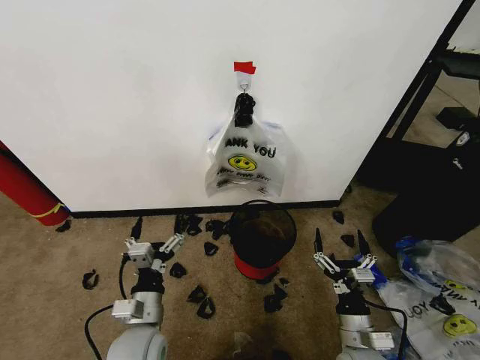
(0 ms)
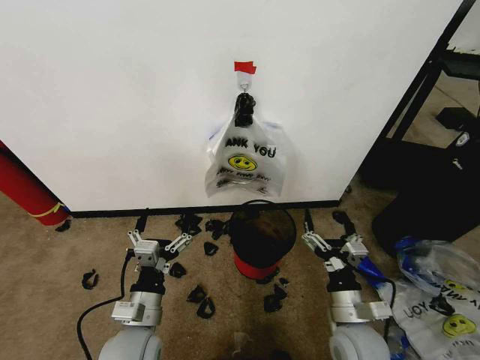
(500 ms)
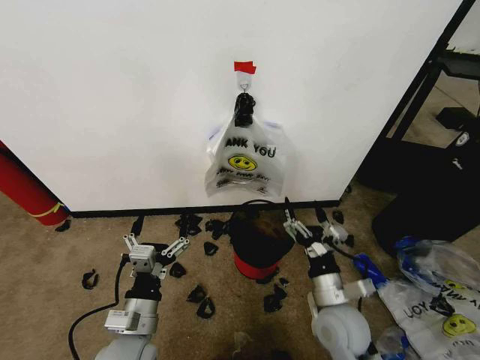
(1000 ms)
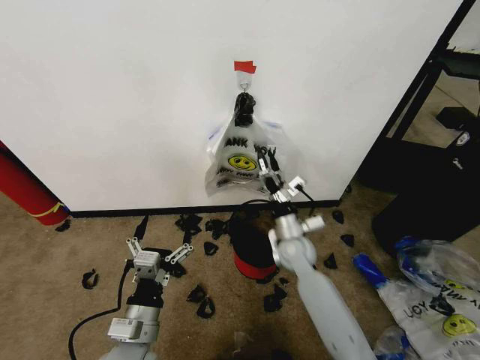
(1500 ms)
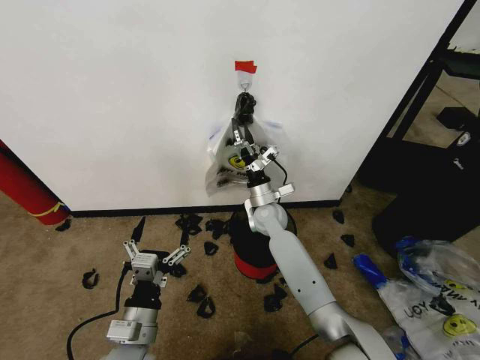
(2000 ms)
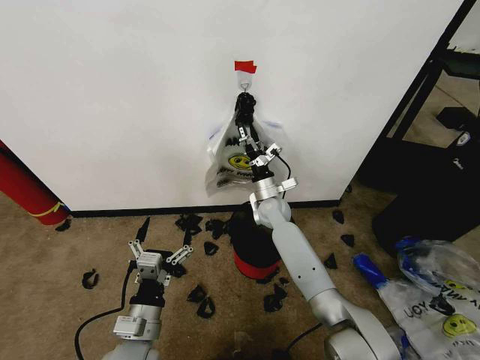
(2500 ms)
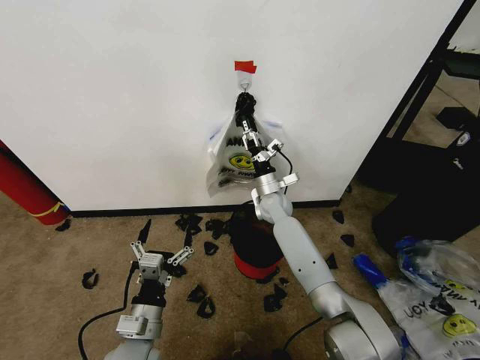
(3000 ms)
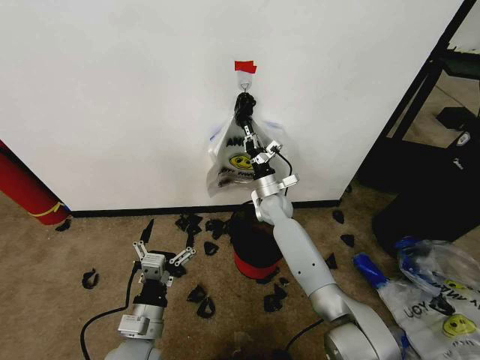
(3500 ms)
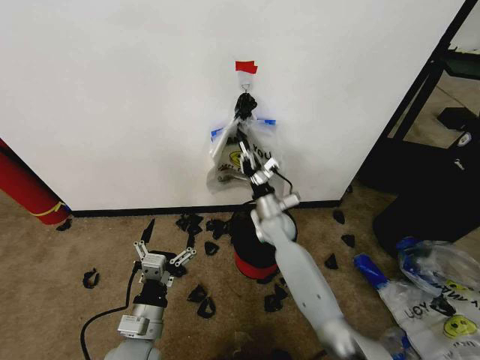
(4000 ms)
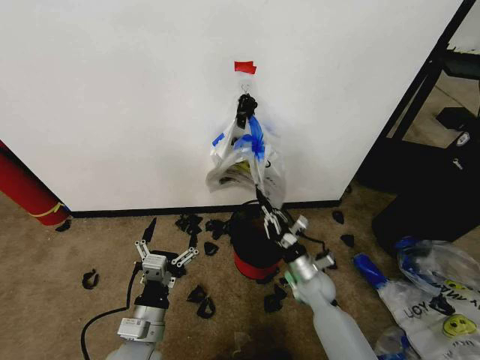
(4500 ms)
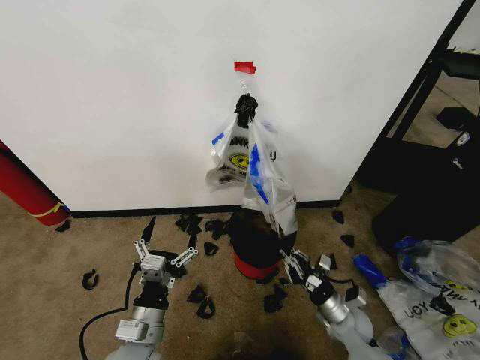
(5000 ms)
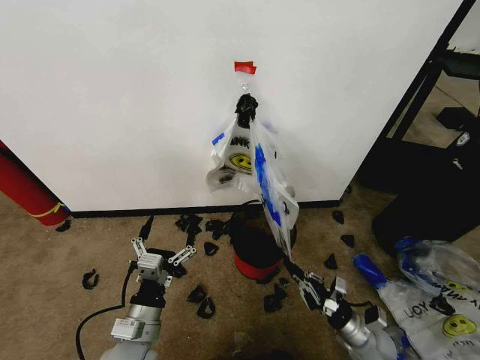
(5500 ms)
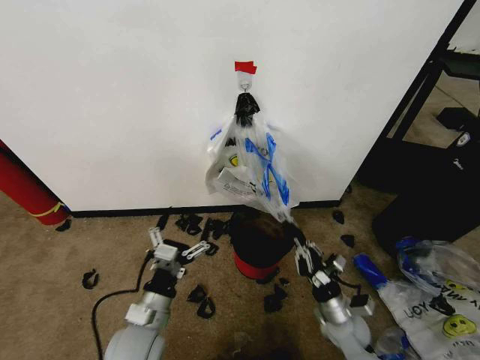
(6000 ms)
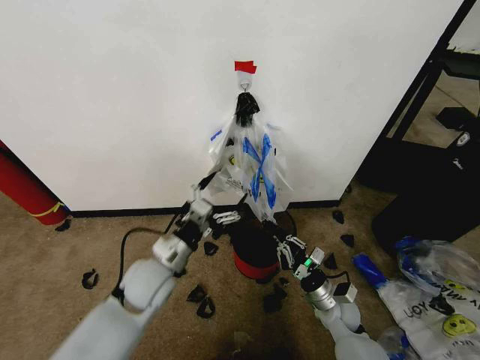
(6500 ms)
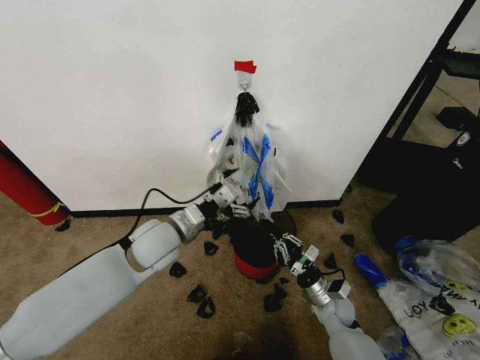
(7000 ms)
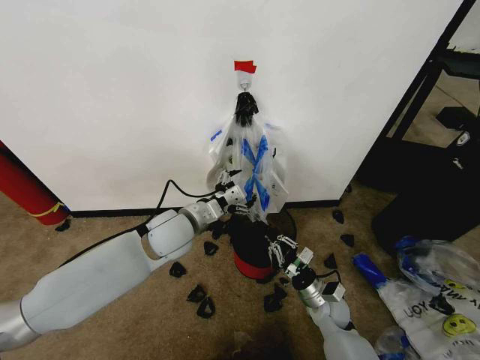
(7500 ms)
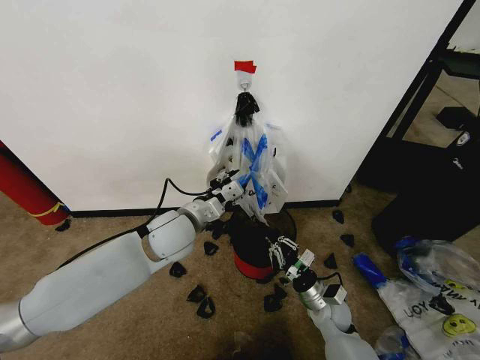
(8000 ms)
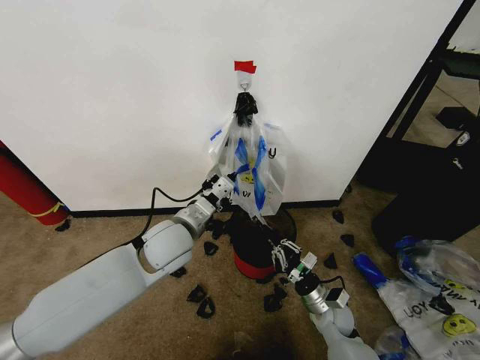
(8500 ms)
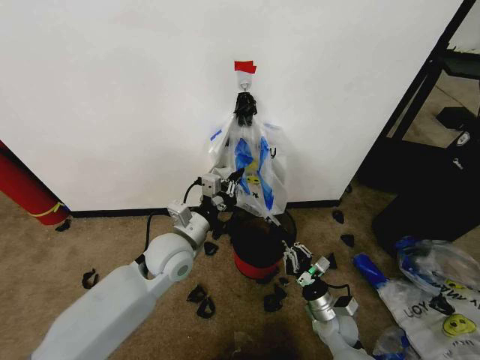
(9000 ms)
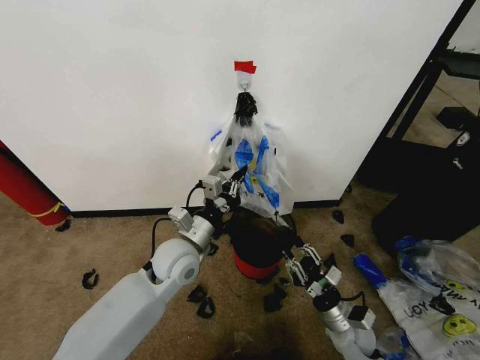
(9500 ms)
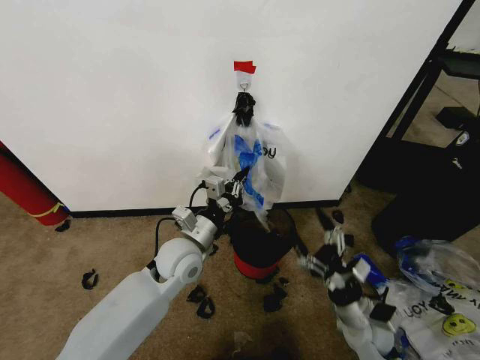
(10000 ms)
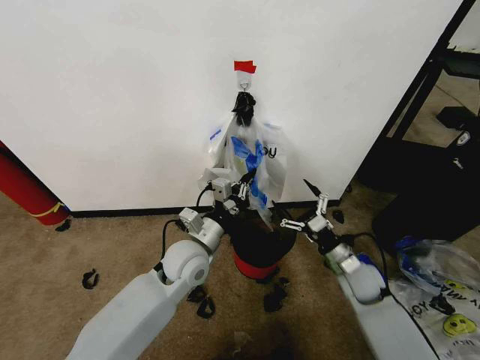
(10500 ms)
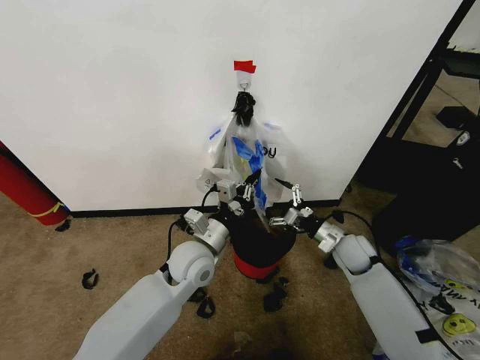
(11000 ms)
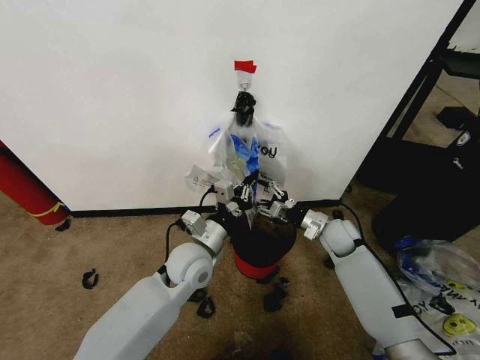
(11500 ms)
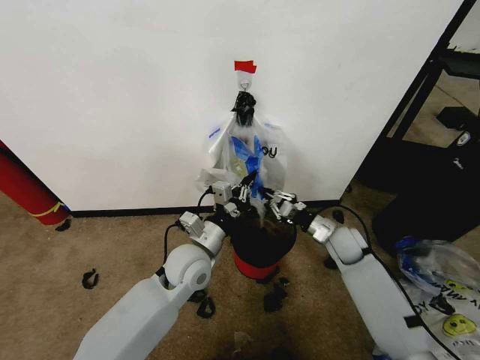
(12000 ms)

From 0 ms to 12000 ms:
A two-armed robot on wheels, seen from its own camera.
Task of the whole recording: Pick up the garbage bag from the wall and place it over the trash bin.
From 2000 ms to 4000 ms: The right gripper closes.
From 4000 ms to 6000 ms: The right gripper travels backward, to the right and downward by roughly 30 cm.
From 6000 ms to 8000 ms: The left gripper travels forward and upward by approximately 20 cm, and closes its fingers.
From 8000 ms to 10000 ms: The left gripper moves downward, roughly 5 cm, and closes up; the right gripper is displaced upward and backward by some 10 cm, and opens.
From 10000 ms to 12000 ms: The right gripper travels forward by roughly 20 cm, and closes up.

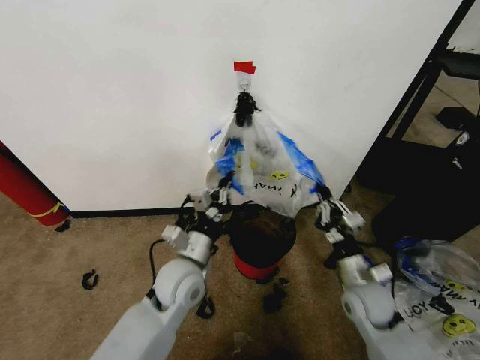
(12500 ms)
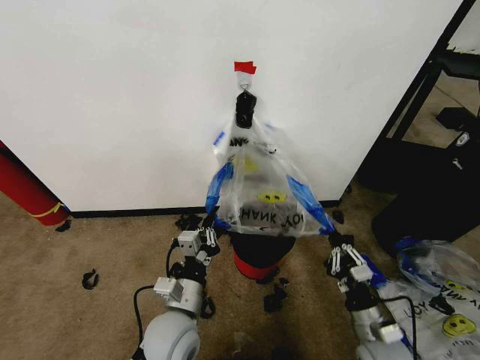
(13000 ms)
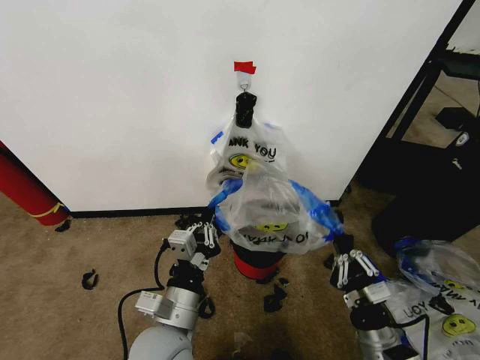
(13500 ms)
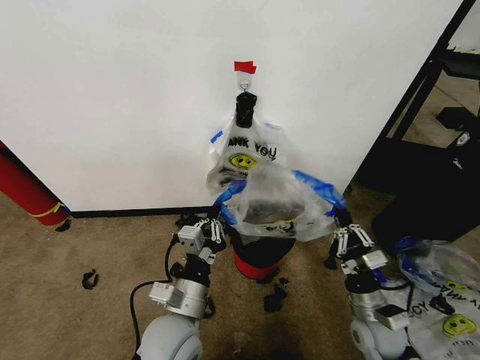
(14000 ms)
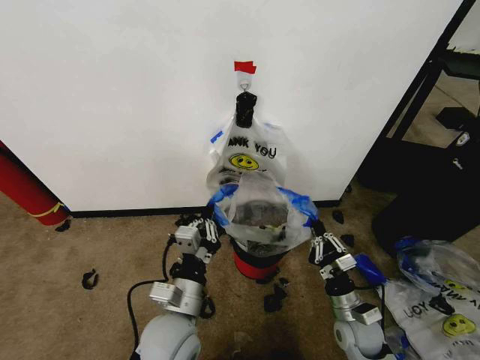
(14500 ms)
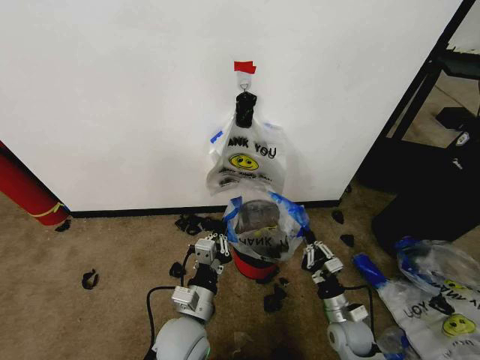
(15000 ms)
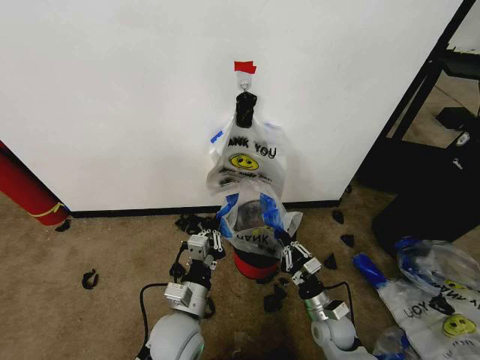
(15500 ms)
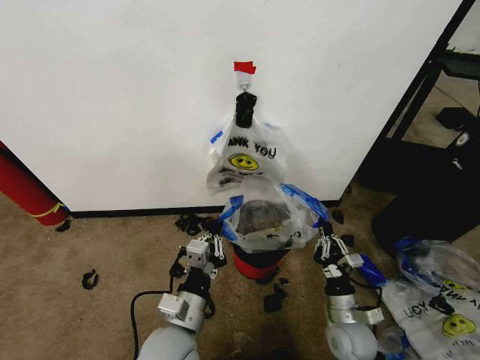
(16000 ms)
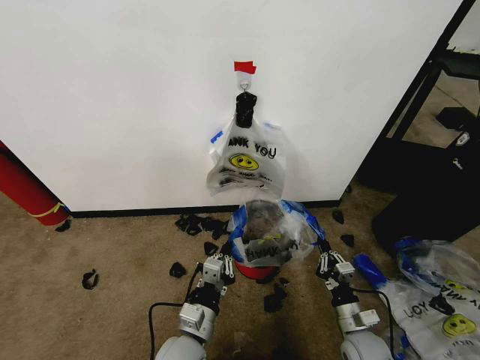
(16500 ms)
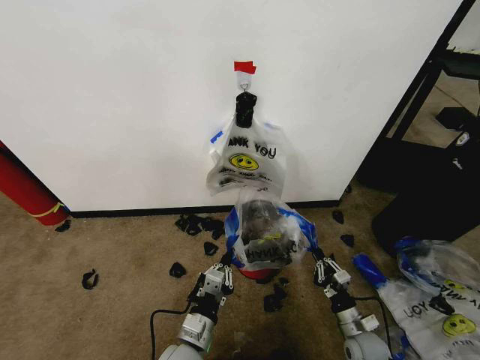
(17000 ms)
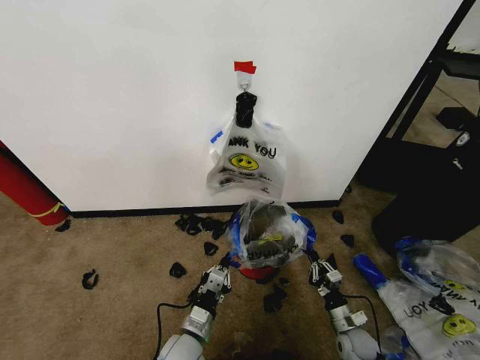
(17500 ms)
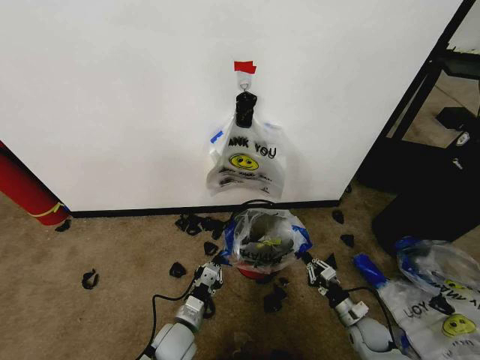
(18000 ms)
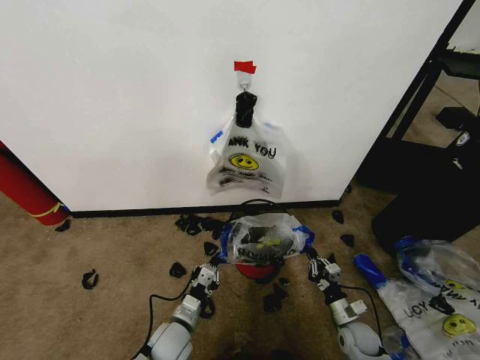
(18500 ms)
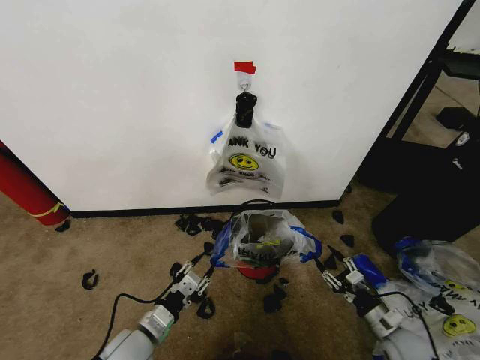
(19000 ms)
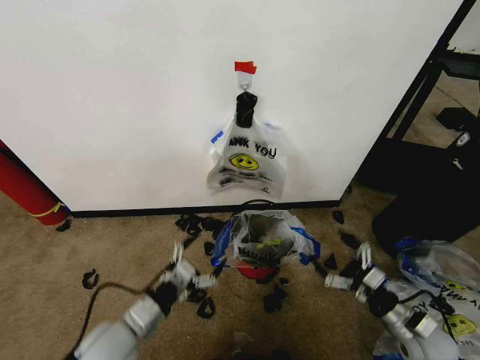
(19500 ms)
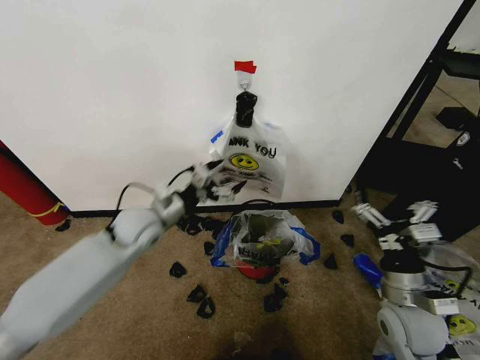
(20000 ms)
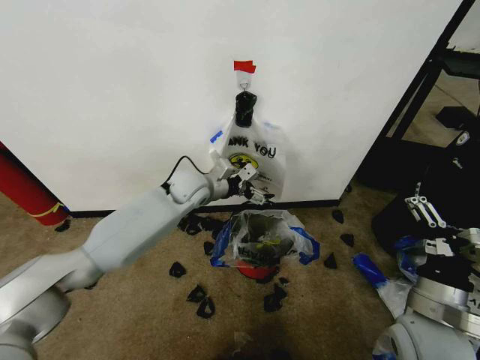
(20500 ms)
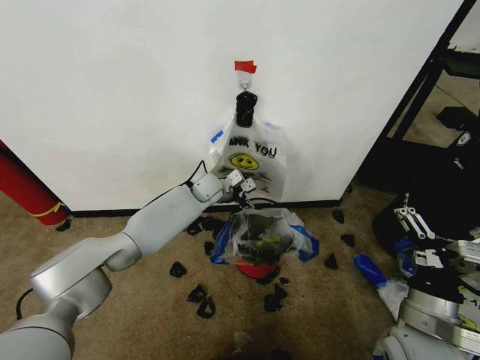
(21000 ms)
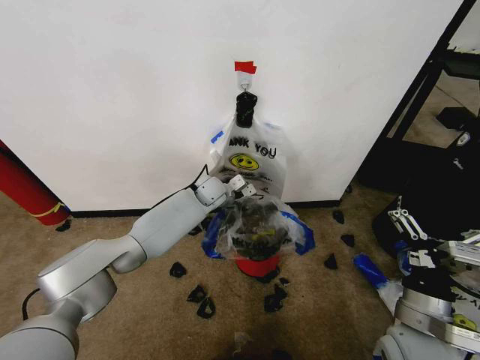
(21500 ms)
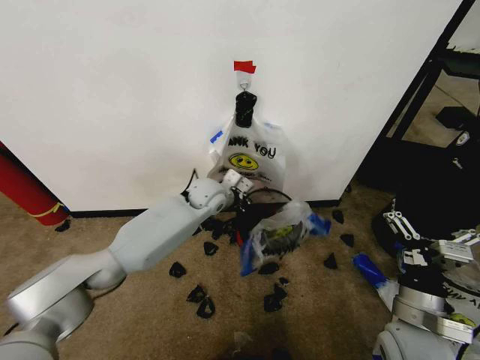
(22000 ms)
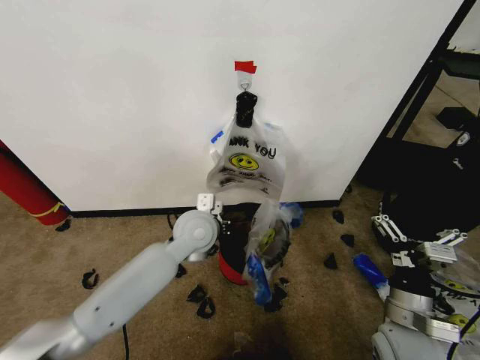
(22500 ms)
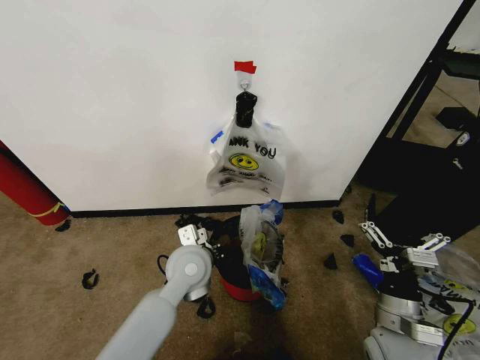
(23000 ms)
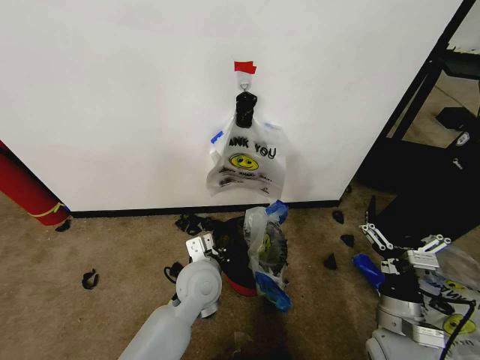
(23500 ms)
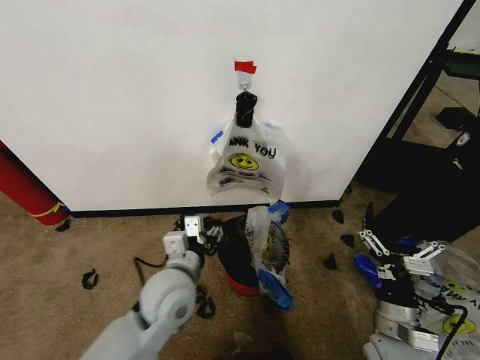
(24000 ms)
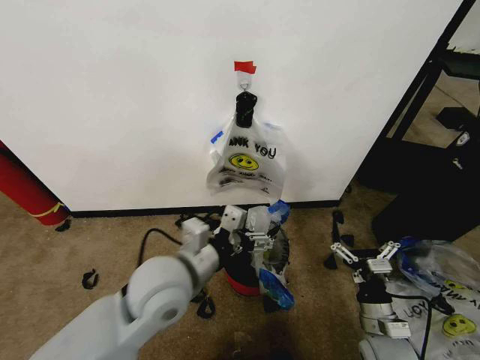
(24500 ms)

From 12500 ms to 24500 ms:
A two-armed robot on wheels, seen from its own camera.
Task of the whole recording: Pick up the garbage bag from the wall and place it over the trash bin.
From 12500 ms to 14500 ms: The right gripper heads downward, covering approximately 10 cm, while the left gripper moves backward, approximately 10 cm.
From 14500 ms to 16500 ms: The left gripper heads downward, covering about 10 cm.
From 16500 ms to 18500 ms: The left gripper heads downward, to the left and forward, covering about 10 cm; the right gripper shifts about 10 cm downward.
From 18500 ms to 20500 ms: The left gripper goes approximately 35 cm forward and upward, and opens its fingers. The right gripper heads upward, covering about 30 cm, and opens its fingers.
From 20500 ms to 22500 ms: The left gripper moves backward, some 10 cm, and closes its fingers. The right gripper shifts approximately 5 cm downward.
From 22500 ms to 24500 ms: The left gripper heads backward, covering about 15 cm, and opens. The right gripper travels downward by approximately 10 cm.

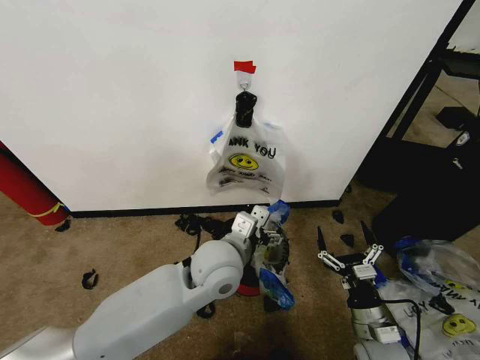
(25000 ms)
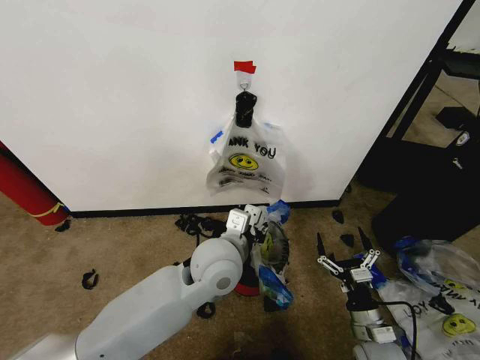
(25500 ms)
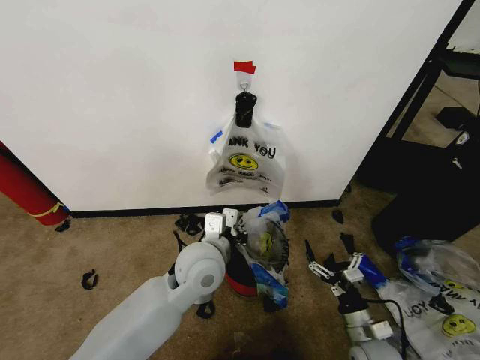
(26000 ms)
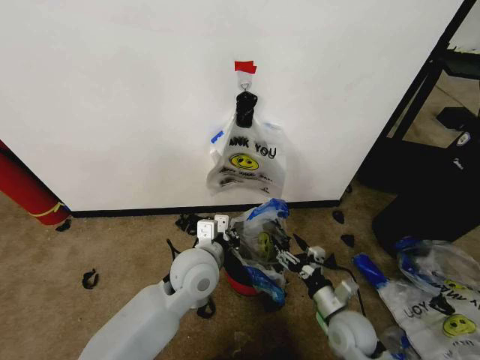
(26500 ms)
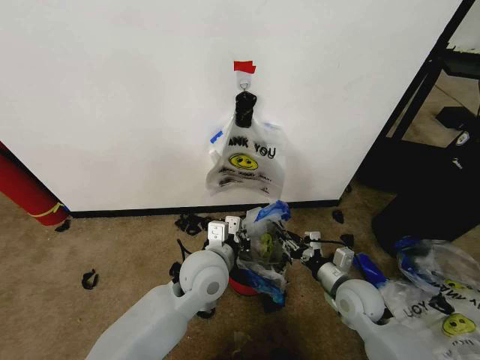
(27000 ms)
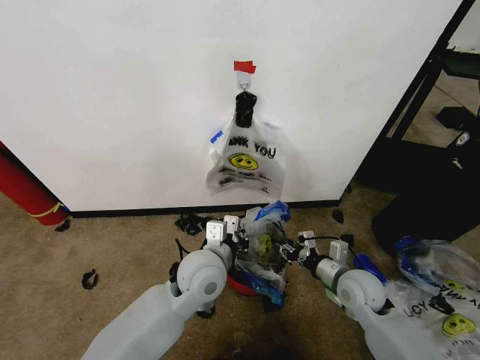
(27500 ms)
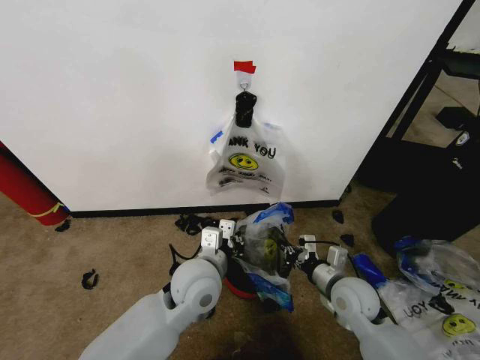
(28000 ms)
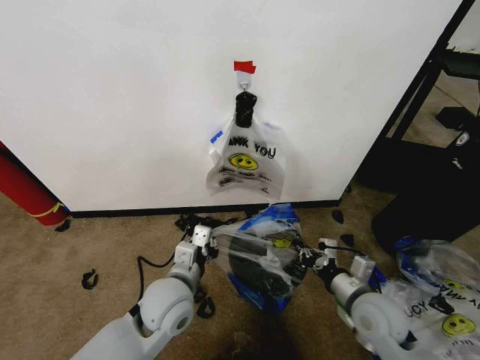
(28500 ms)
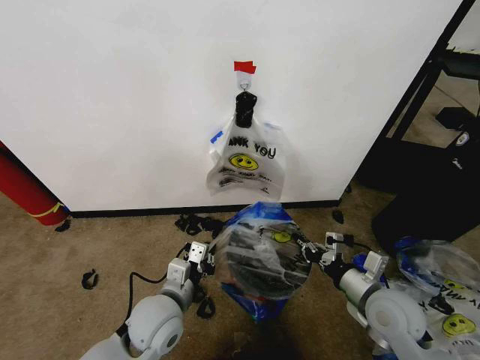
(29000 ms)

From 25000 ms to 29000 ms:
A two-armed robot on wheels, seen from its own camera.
Task of the whole recording: Pick up the garbage bag from the wall and place it over the trash bin.
From 25000 ms to 27000 ms: The right gripper travels forward by some 10 cm, and closes its fingers. The left gripper closes its fingers.
From 27000 ms to 29000 ms: The right gripper goes some 5 cm upward, and closes. Meanwhile the left gripper shifts about 10 cm to the left, backward and downward.
